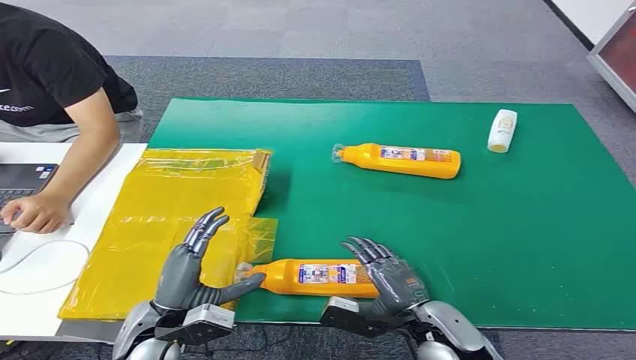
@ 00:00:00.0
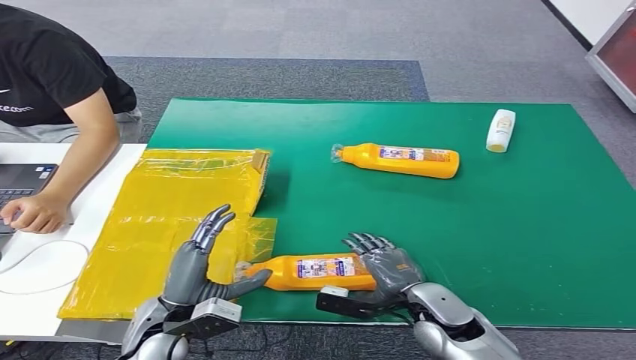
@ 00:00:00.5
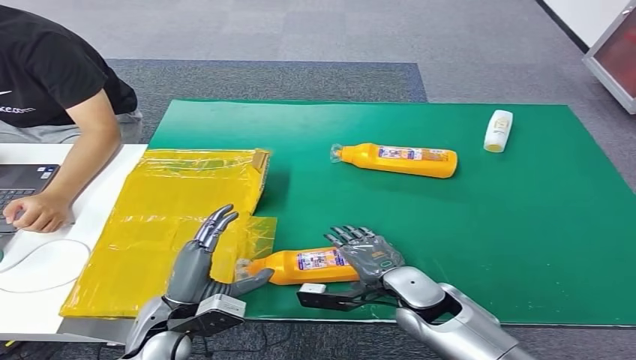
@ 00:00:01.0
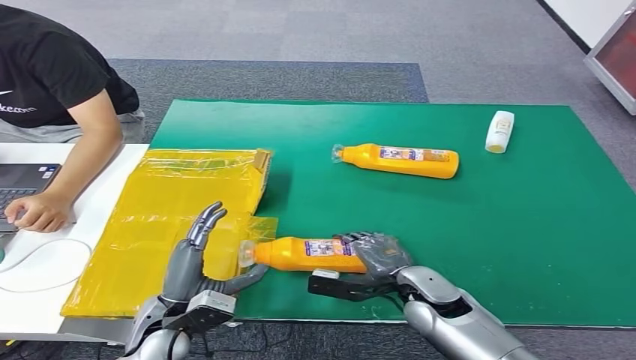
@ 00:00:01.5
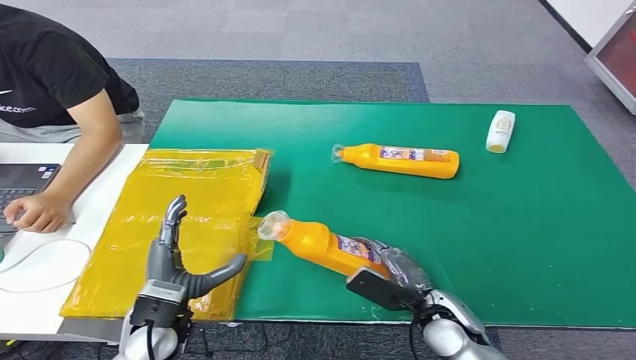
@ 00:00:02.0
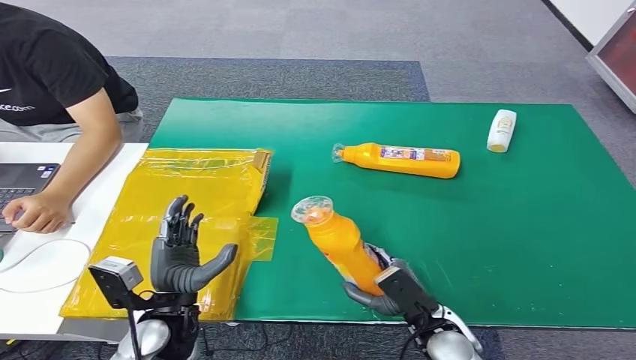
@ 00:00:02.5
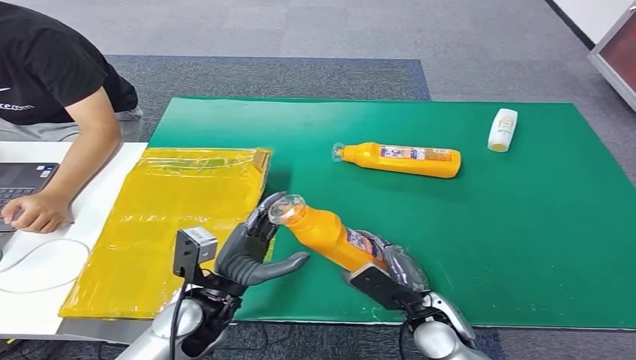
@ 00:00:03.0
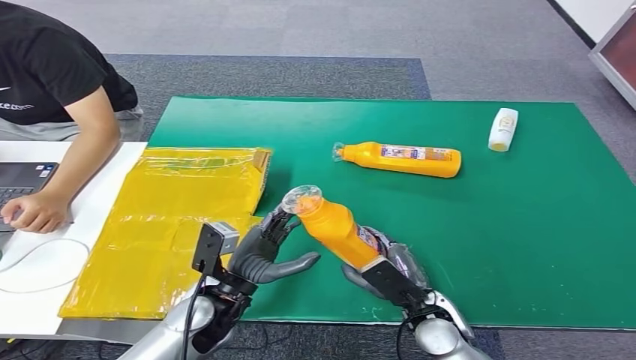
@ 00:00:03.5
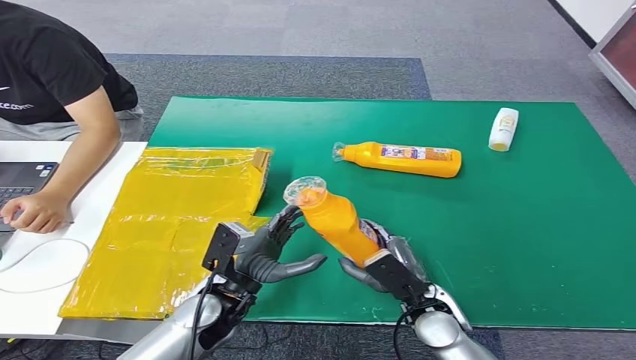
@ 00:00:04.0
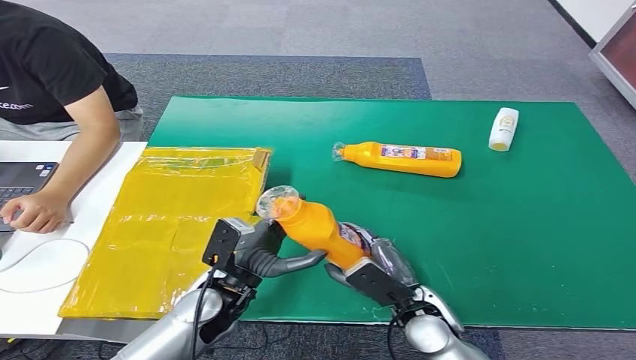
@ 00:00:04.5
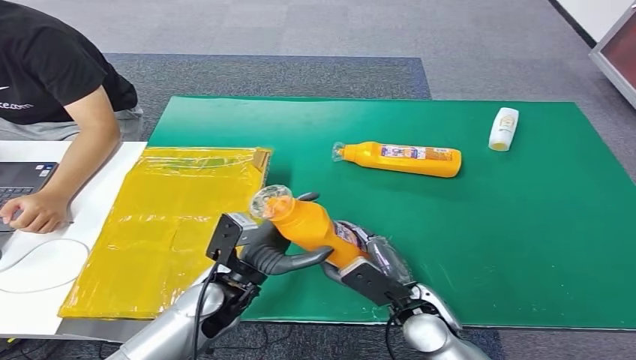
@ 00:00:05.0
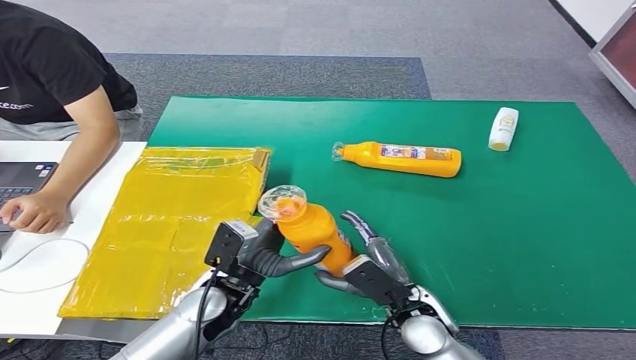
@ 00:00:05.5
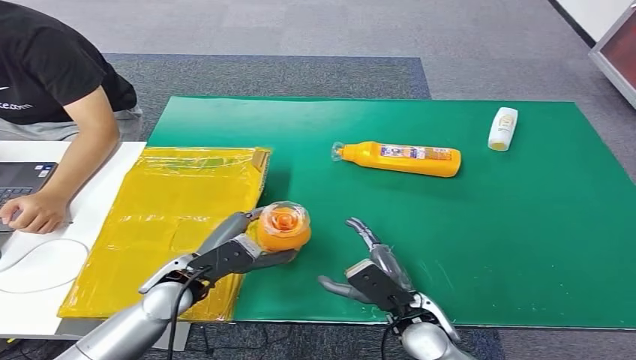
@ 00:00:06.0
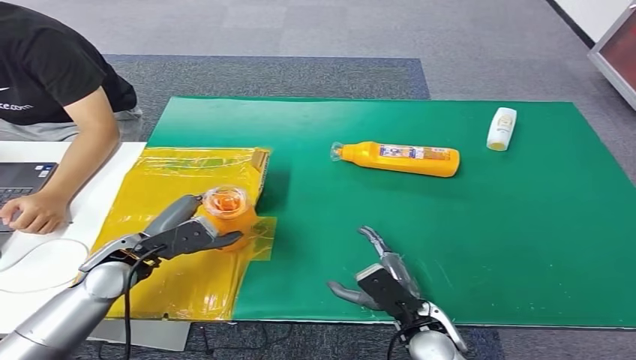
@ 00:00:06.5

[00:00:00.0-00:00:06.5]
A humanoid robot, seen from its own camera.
Step, 00:00:00.0 to 00:00:03.0: Pick up the bottle from the table.
Step, 00:00:03.5 to 00:00:06.5: Turn the bottle to the front side.
00:00:02.0 to 00:00:04.5: The left hand goes some 5 cm to the right.
00:00:04.5 to 00:00:06.5: The left hand heads to the left, covering approximately 15 cm.
